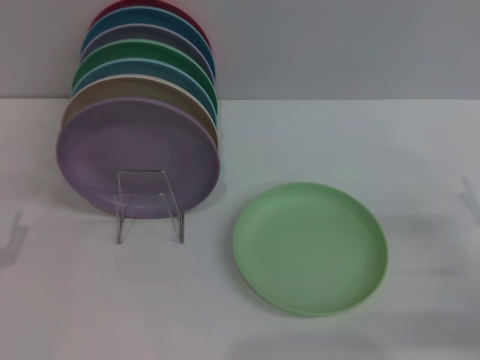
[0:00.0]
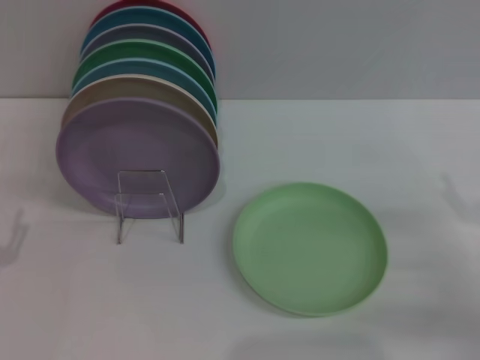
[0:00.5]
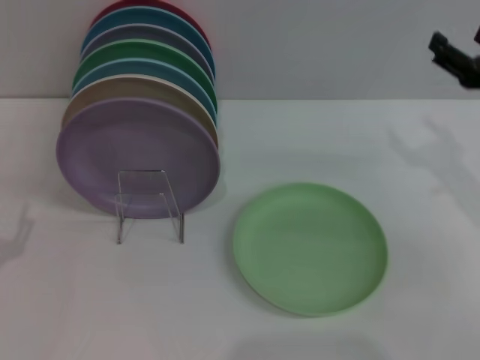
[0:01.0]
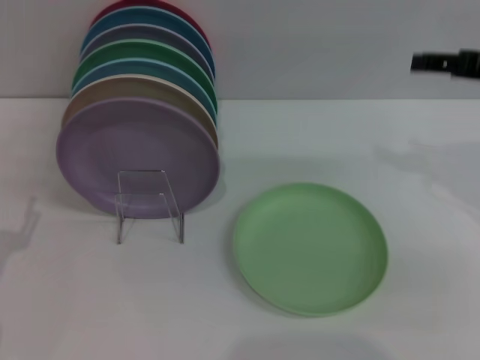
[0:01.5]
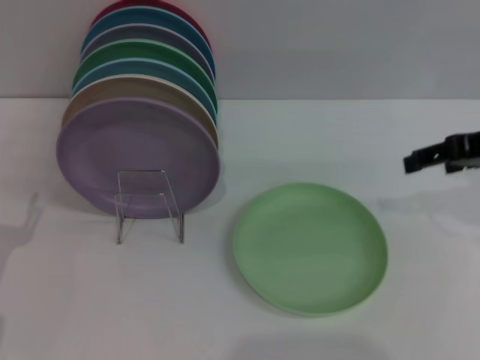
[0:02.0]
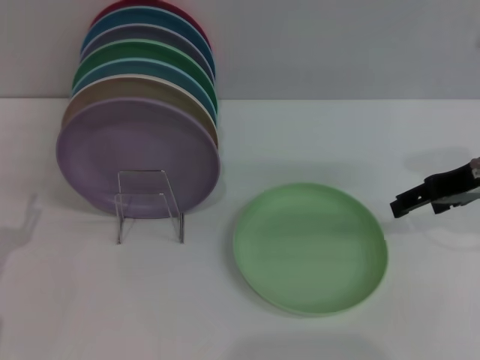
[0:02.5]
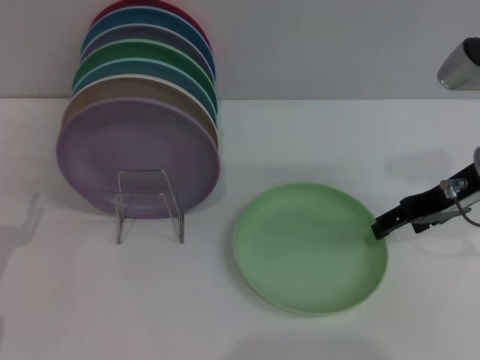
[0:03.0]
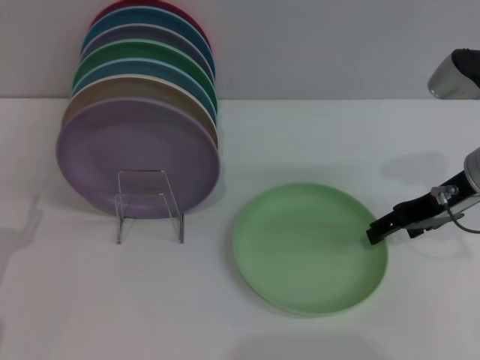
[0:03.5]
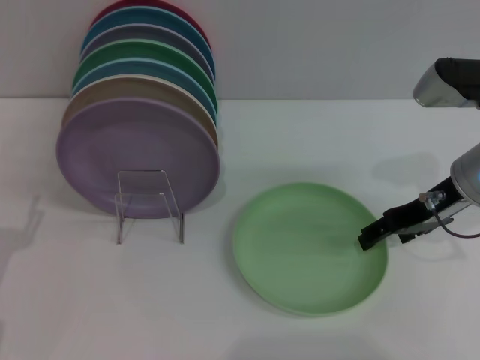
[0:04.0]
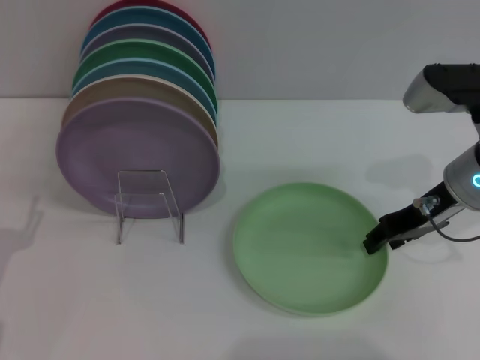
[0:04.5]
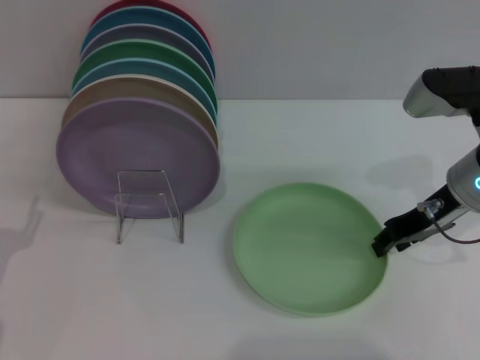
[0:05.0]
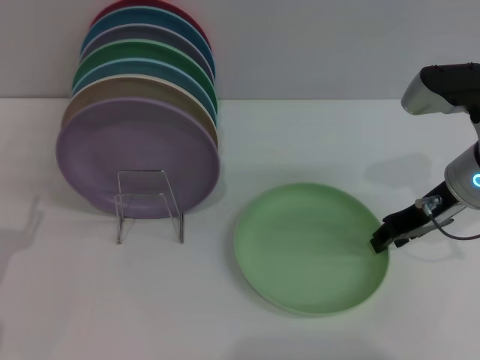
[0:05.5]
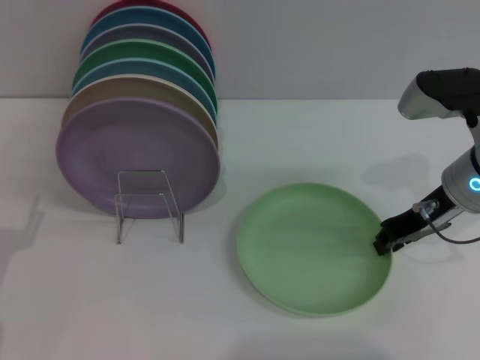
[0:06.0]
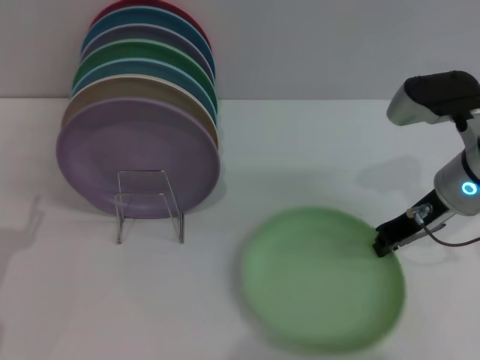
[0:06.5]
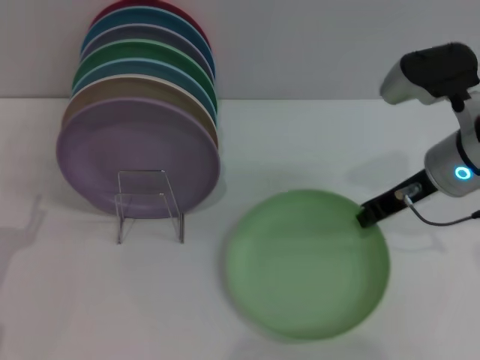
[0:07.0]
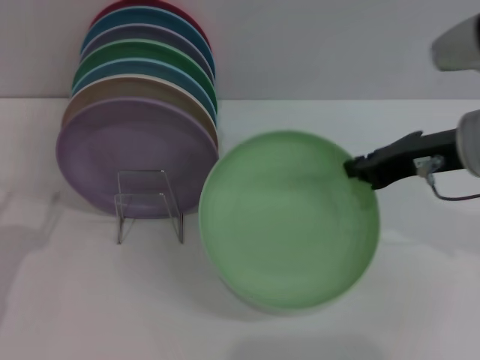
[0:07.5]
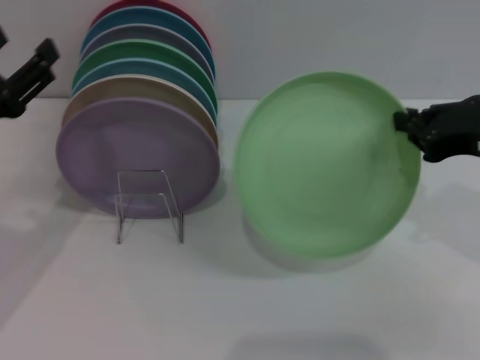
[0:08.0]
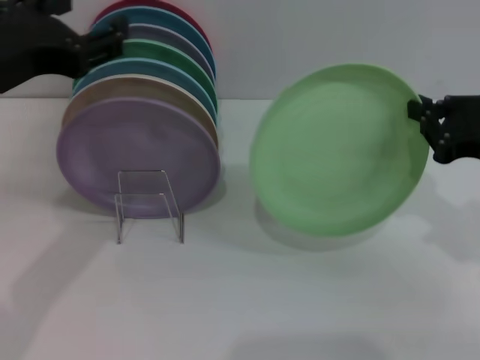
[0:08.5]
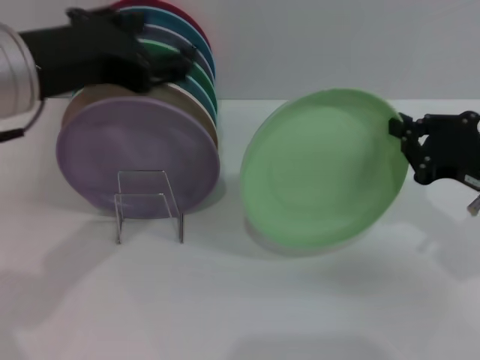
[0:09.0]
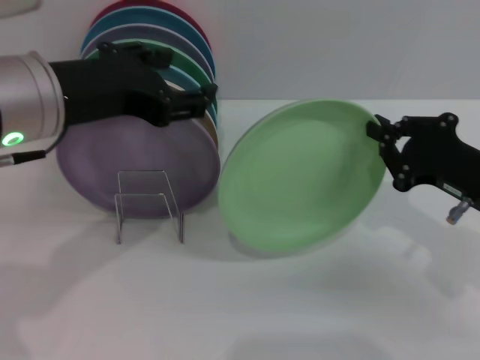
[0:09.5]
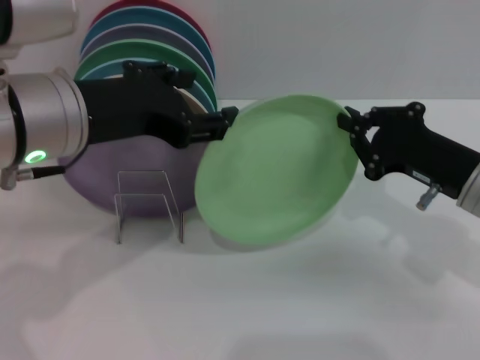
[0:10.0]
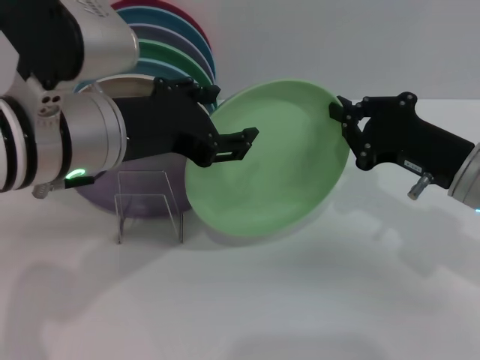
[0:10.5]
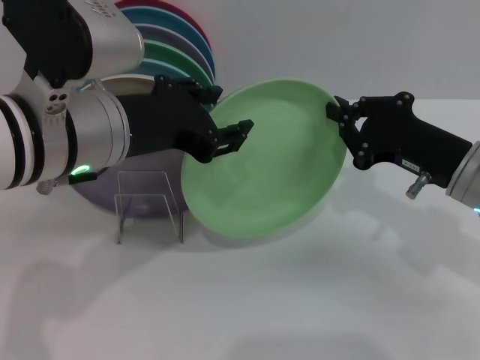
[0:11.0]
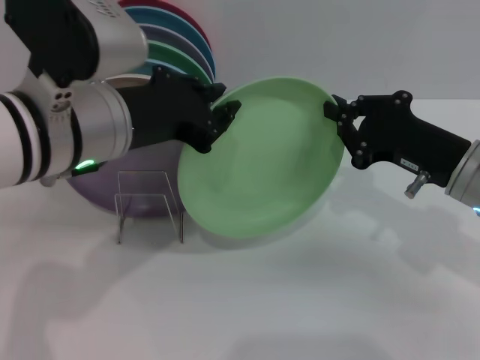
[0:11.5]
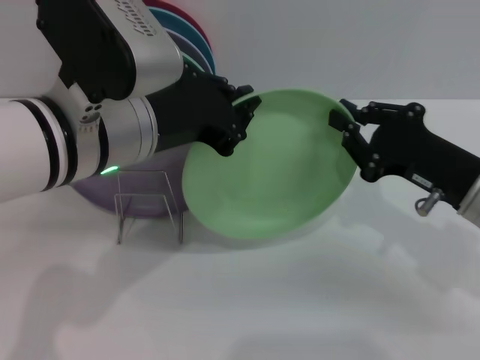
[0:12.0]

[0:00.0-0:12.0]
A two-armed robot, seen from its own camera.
Task of the whole recording: Grip the plate with one hand, pass it to the other, then set it on the shelf.
Step, 0:00.0 to 0:07.0: Pick up the plate with the right gripper.
0:00.0 to 0:02.0: The right gripper heads upward and forward, covering some 20 cm.
0:02.0 to 0:04.0: The right gripper goes roughly 10 cm downward.
0:04.0 to 0:06.0: The right gripper closes its fingers.
0:06.0 to 0:08.0: The left gripper heads upward, covering some 15 cm, while the right gripper moves backward and upward, about 10 cm.
0:08.0 to 0:10.0: The right gripper is displaced downward by some 10 cm, while the left gripper goes about 15 cm to the right and upward.
0:10.0 to 0:12.0: The left gripper closes up.

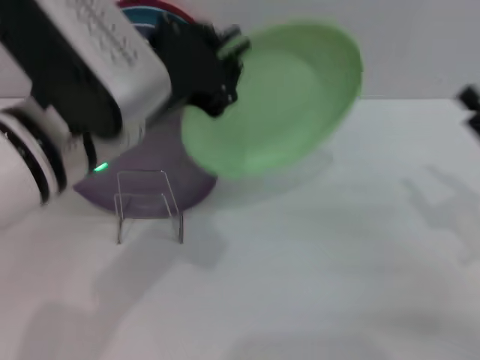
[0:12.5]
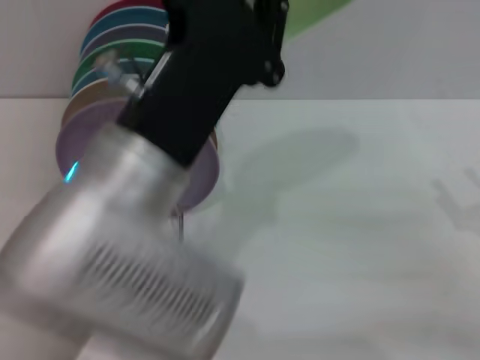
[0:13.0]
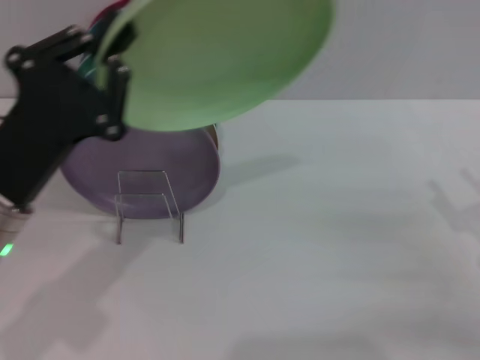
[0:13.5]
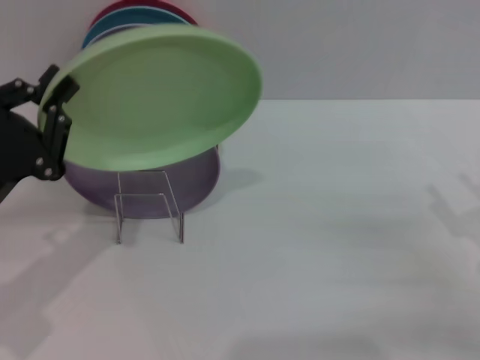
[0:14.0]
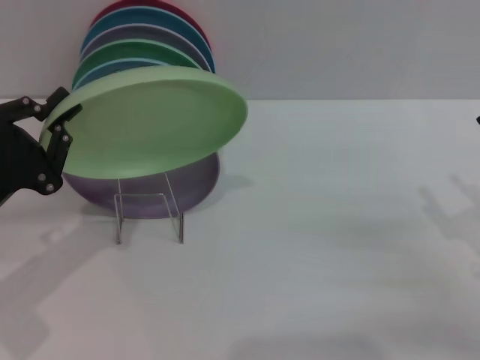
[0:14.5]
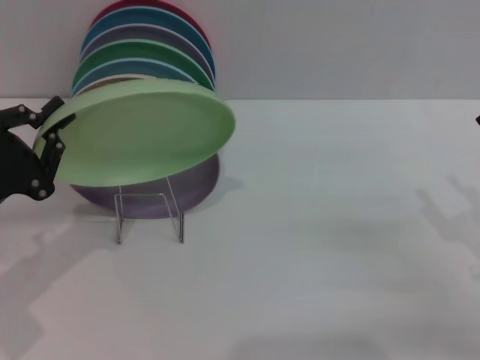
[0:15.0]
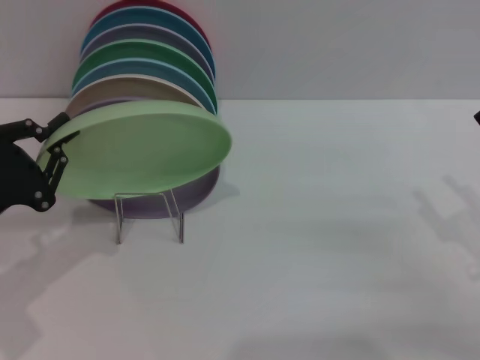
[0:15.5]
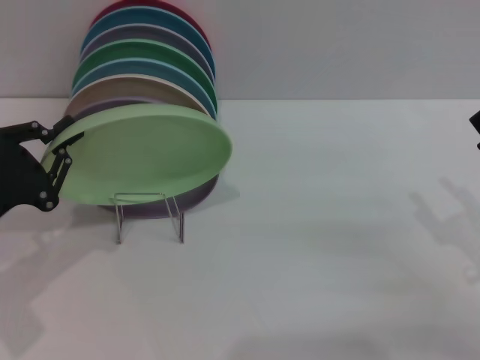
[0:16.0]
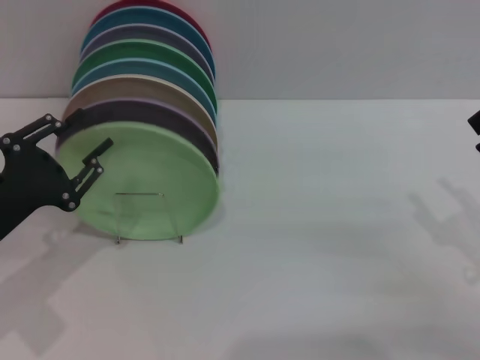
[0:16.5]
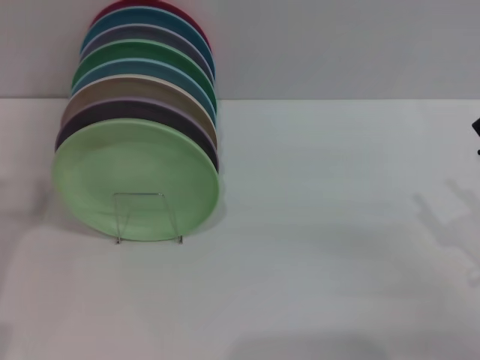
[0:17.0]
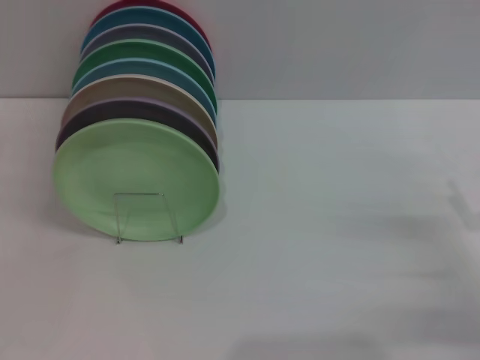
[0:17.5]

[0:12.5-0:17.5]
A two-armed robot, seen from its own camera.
Task of the whole recording: Grip the plate with one hand, pass it to the other, then set it on the shelf.
Step, 0:13.0 to 0:16.5: Place the plate on the shelf with the left gripper.
0:12.5 to 0:15.0: The left gripper travels to the left and downward by some 20 cm.
0:15.0 to 0:17.5: The left gripper goes approximately 5 cm to the left, and opens its fingers.

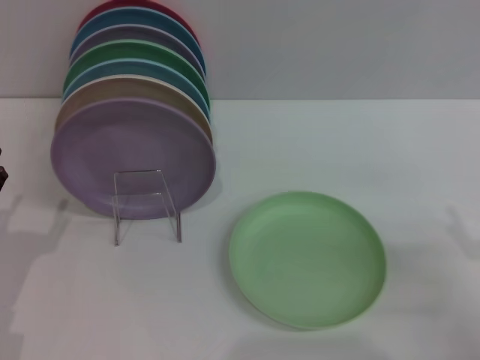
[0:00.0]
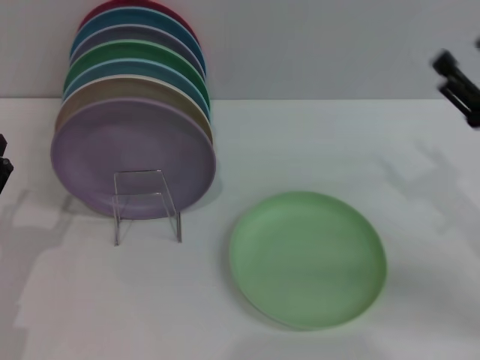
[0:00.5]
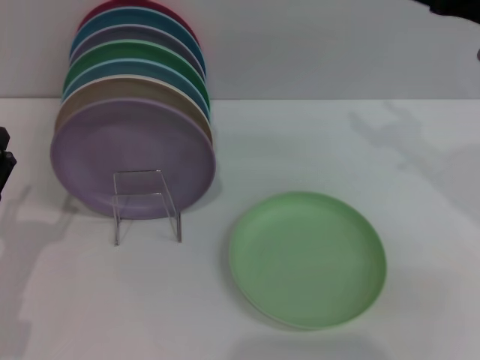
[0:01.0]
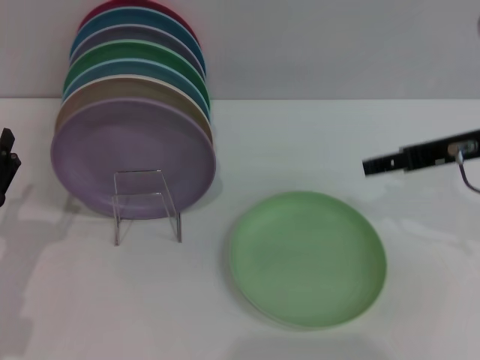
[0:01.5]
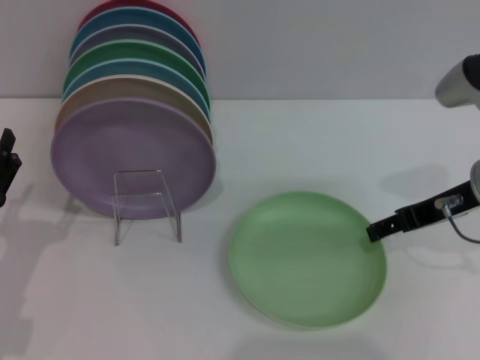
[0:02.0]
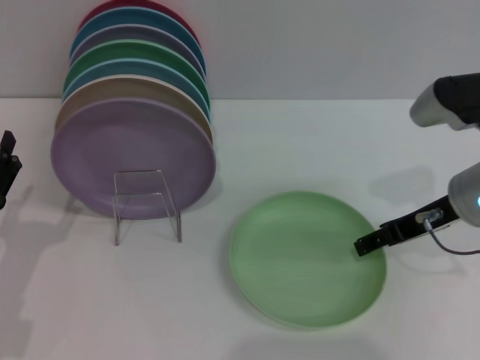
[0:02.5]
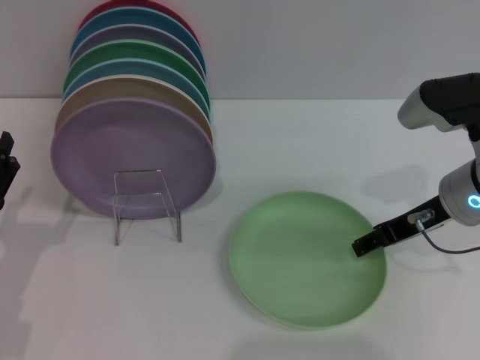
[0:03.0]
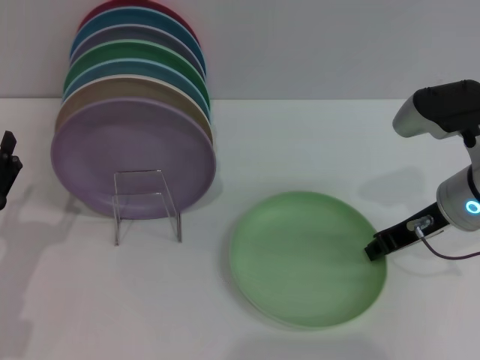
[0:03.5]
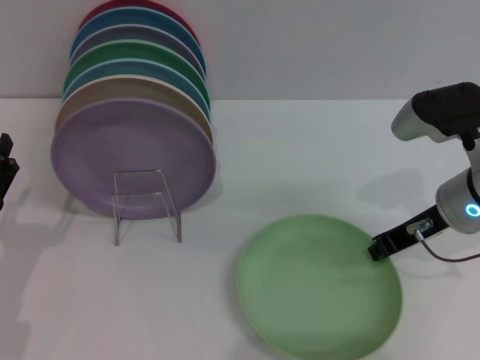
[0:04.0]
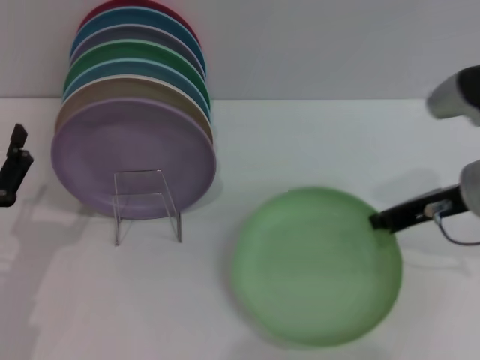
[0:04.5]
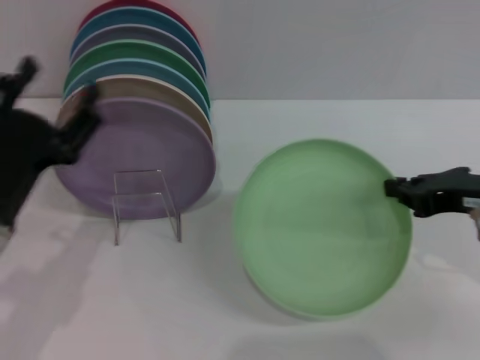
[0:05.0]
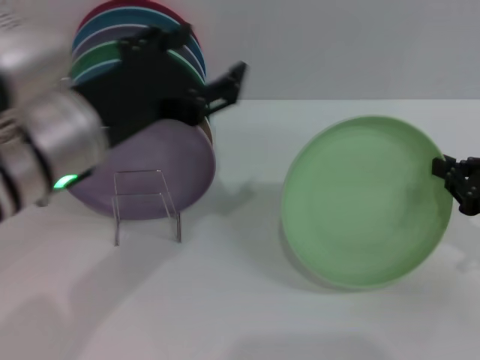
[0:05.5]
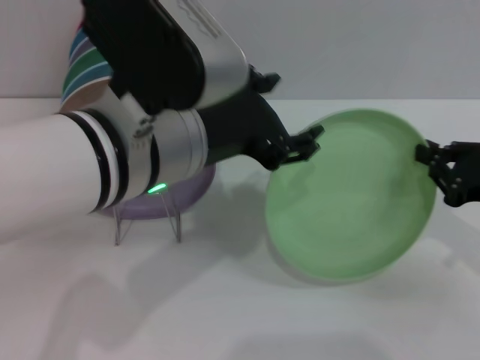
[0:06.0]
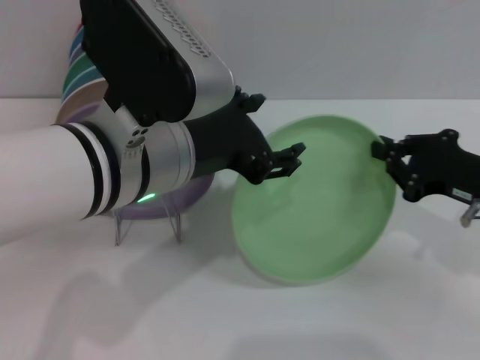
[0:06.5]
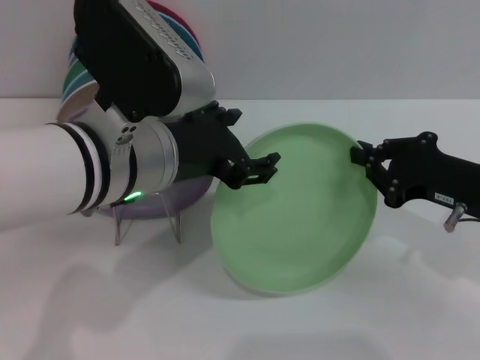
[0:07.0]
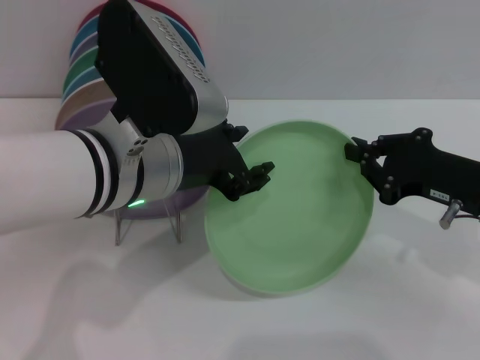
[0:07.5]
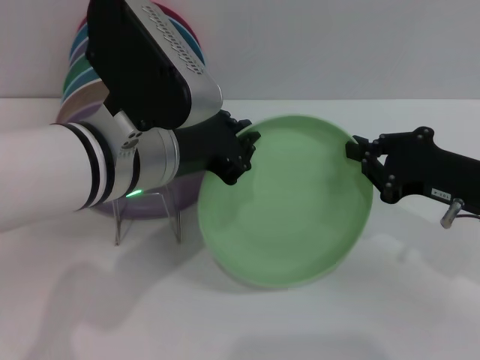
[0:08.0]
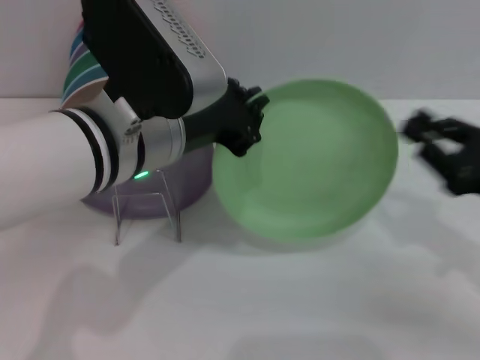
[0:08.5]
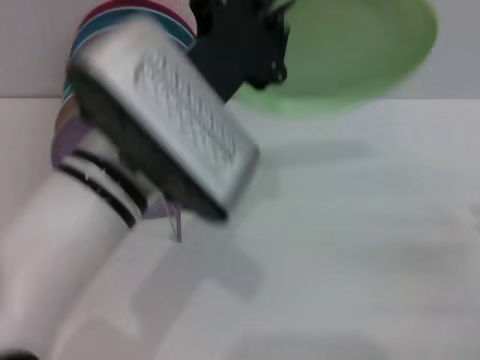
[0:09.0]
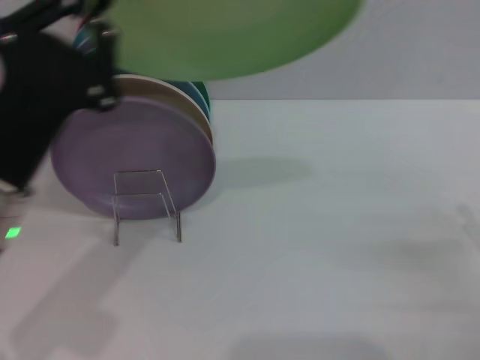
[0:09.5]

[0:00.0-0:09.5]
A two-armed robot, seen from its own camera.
Task of the whole recording: Grip the plate with one hand, pass it to the other, then set it on the shelf.
Step, 0:00.0 to 0:05.0: Pick up the plate with the right gripper.
Step, 0:05.5 to 0:08.0: Pass the plate from the right gripper to the left gripper.
0:00.0 to 0:02.0: The right gripper heads forward, upward and to the left, covering about 20 cm.
0:02.0 to 0:04.0: The right gripper closes up.
0:04.0 to 0:05.5: The right gripper is displaced to the right and backward by about 15 cm, while the left gripper travels upward and to the right by about 25 cm.
0:05.5 to 0:07.5: The right gripper is displaced to the left by approximately 5 cm. Meanwhile the left gripper ends up some 5 cm from where it was.
0:07.5 to 0:09.5: The left gripper travels to the left and downward by about 10 cm, and closes up. Meanwhile the right gripper shifts some 15 cm backward, to the right and downward, and opens.
